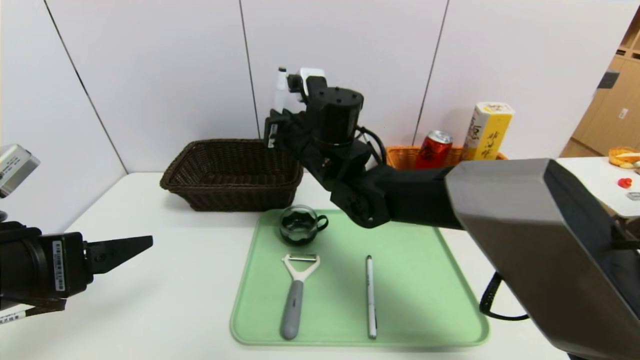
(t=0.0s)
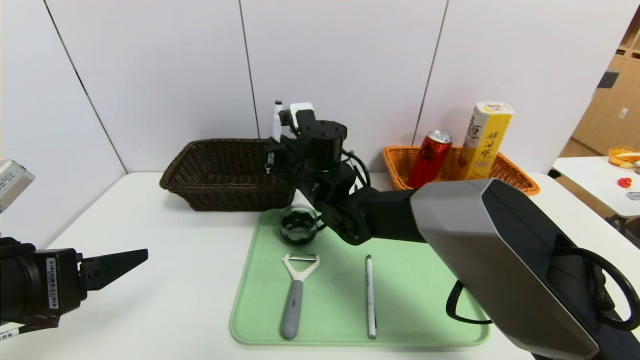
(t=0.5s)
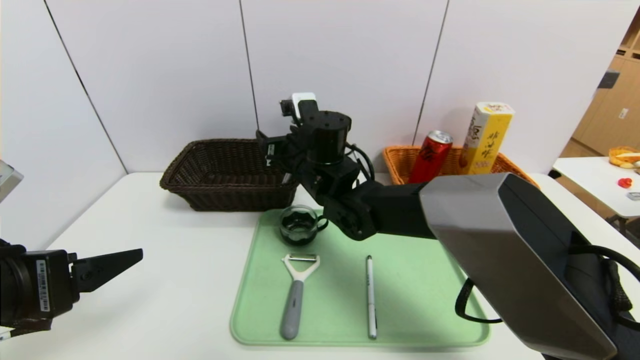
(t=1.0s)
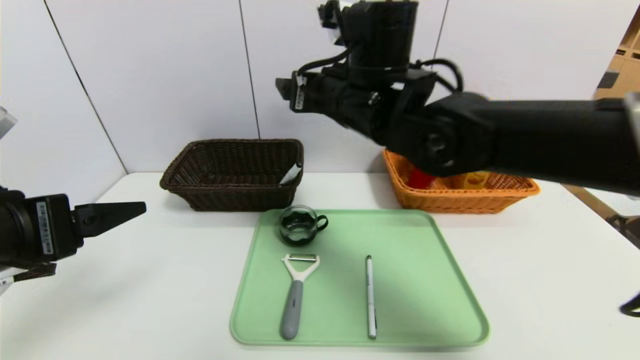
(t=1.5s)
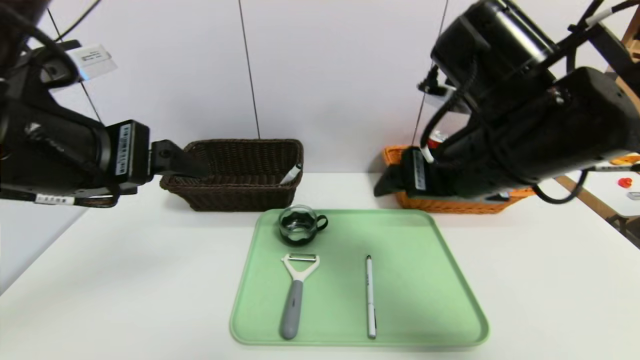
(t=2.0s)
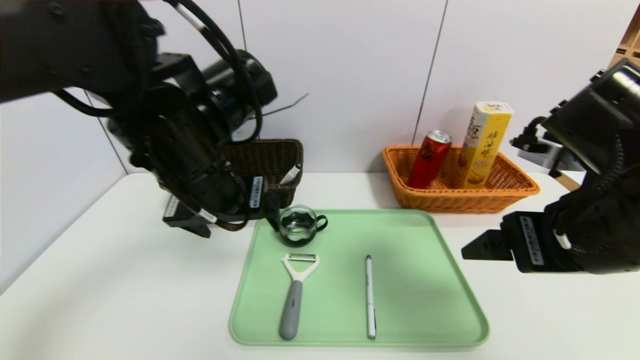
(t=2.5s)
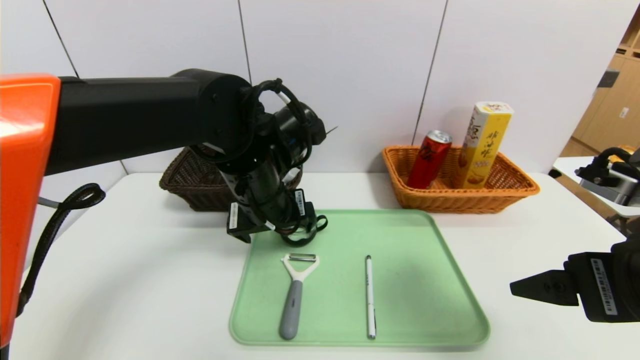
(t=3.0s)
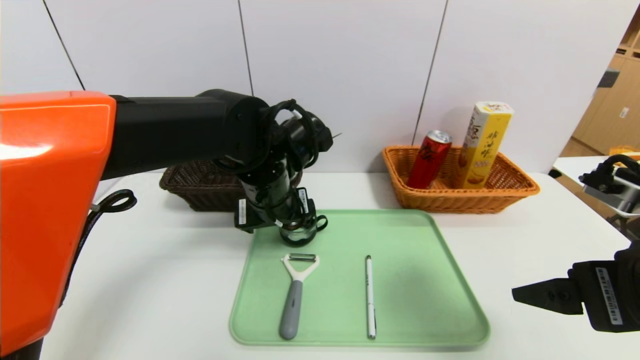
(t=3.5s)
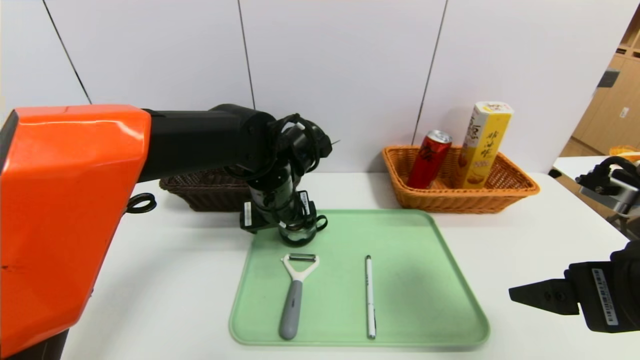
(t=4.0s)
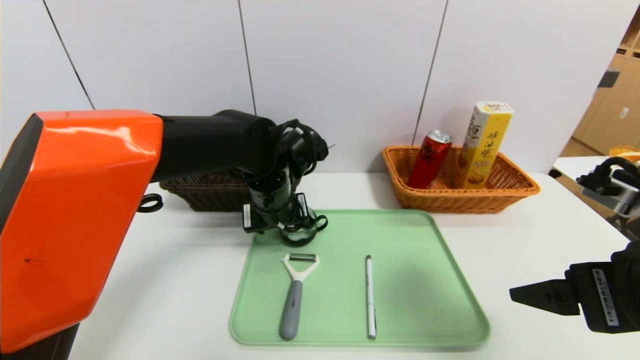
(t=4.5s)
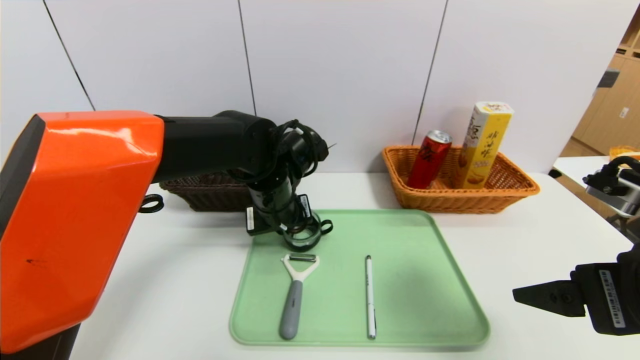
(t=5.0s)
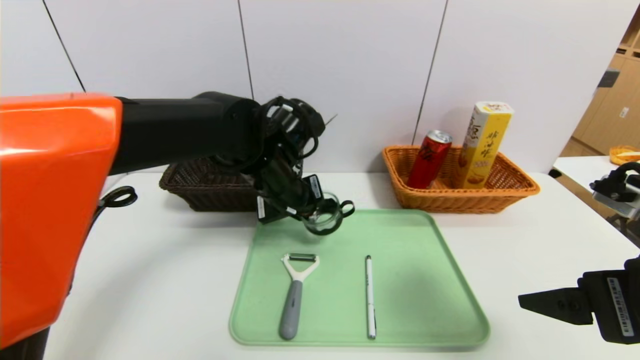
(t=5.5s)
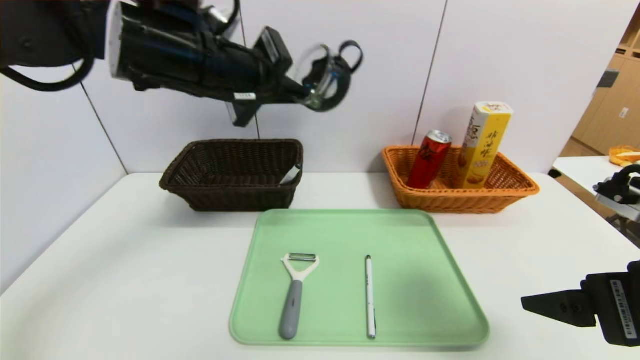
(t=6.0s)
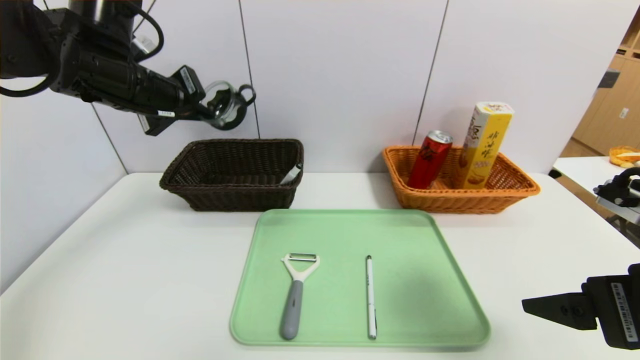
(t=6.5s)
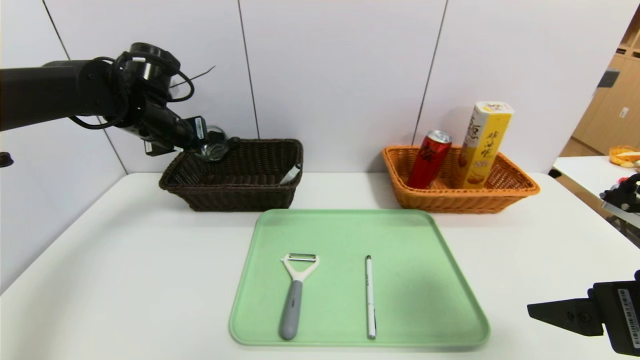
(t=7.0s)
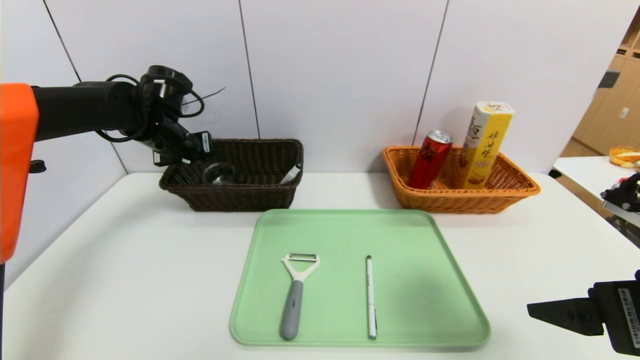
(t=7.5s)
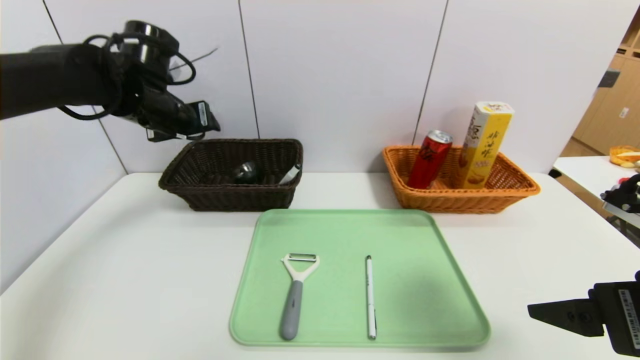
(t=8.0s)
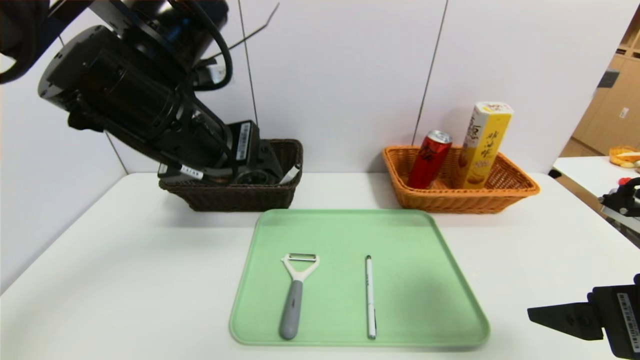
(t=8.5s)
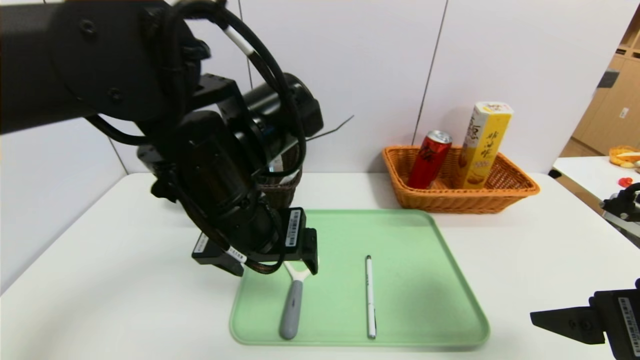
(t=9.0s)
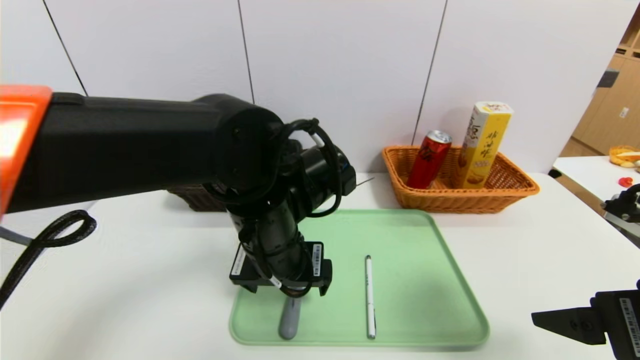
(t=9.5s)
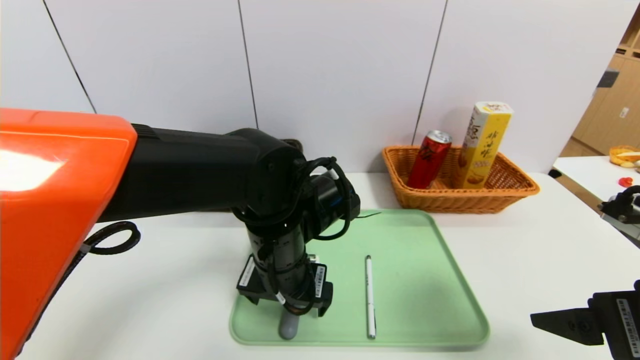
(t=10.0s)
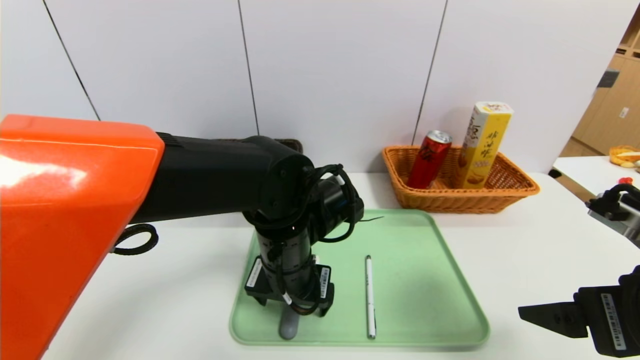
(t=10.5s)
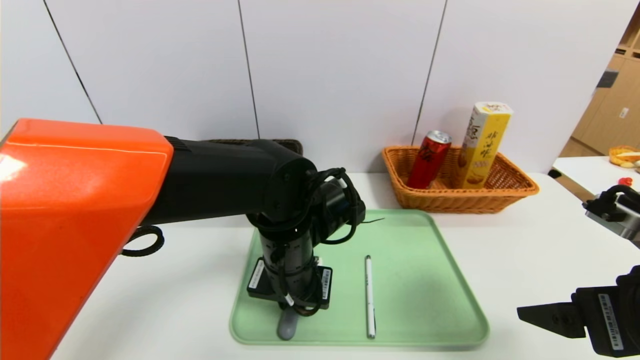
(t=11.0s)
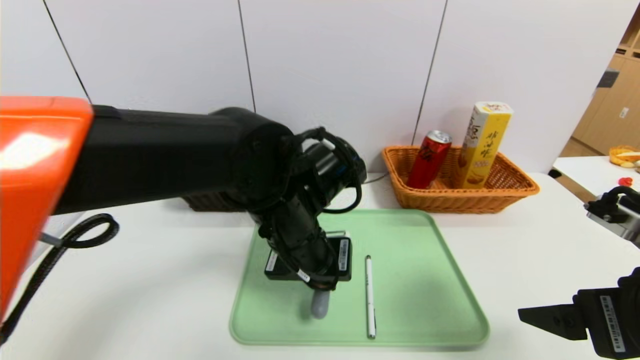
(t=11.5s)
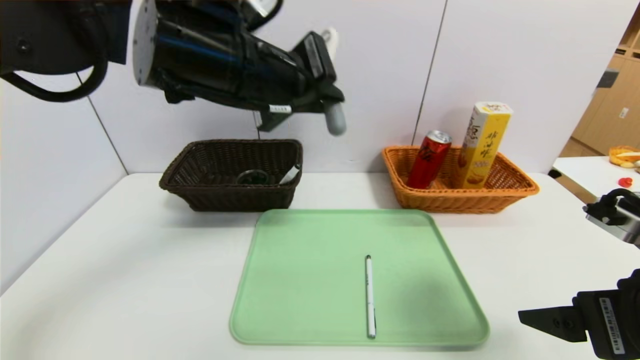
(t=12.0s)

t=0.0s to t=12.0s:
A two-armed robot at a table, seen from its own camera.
Task of the whole recording: place the food in the right basket with the right gripper, and place the non food items in the left basket with the left gripper.
Step, t=1.5s to t=7.5s: Grasp the black glass cup and put it in the left basket.
t=0.0s to t=2.0s: The right gripper goes about 25 cm to the right, backward and upward, and opens its fingers, while the left gripper goes about 10 cm upward, to the right and forward.
t=2.0s to t=4.0s: The right gripper is displaced to the right and backward by approximately 15 cm; the left gripper moves forward, downward and to the right, some 25 cm.
t=4.0s to t=6.0s: The left gripper moves upward, approximately 15 cm, and closes up.
t=6.0s to t=8.0s: The left gripper travels to the left, forward and downward by approximately 15 cm, and opens its fingers.
t=8.0s to t=10.0s: The left gripper travels to the right, backward and downward by approximately 25 cm.
t=10.0s to t=12.0s: The left gripper moves upward, approximately 20 cm, and closes up.

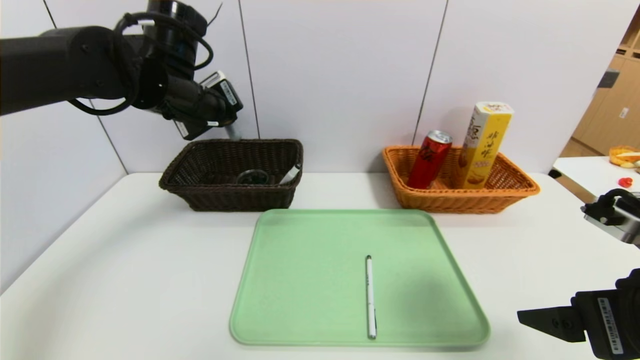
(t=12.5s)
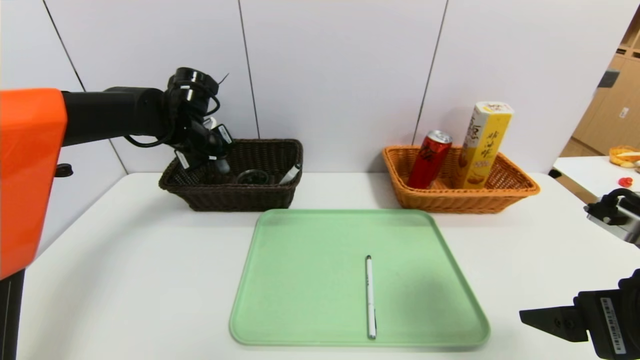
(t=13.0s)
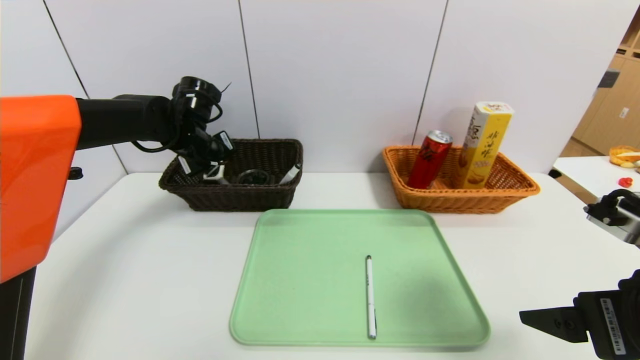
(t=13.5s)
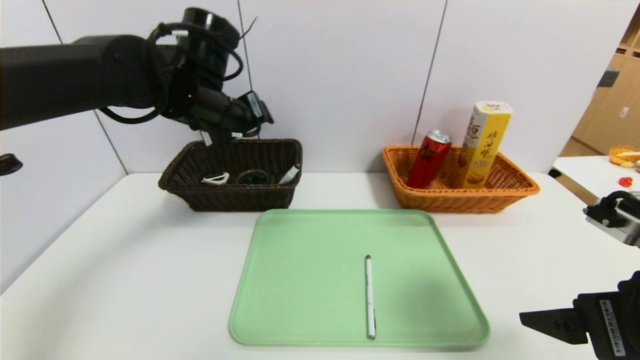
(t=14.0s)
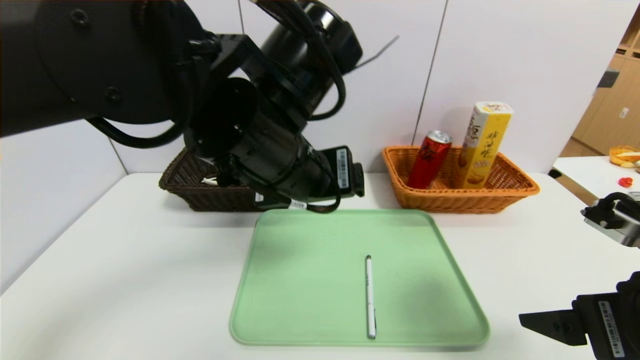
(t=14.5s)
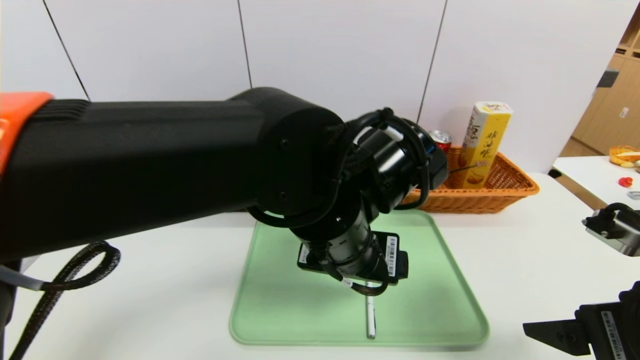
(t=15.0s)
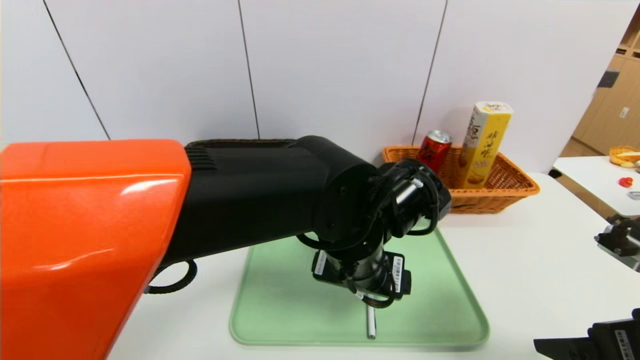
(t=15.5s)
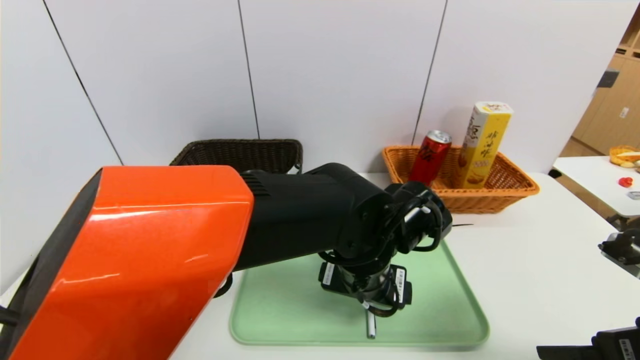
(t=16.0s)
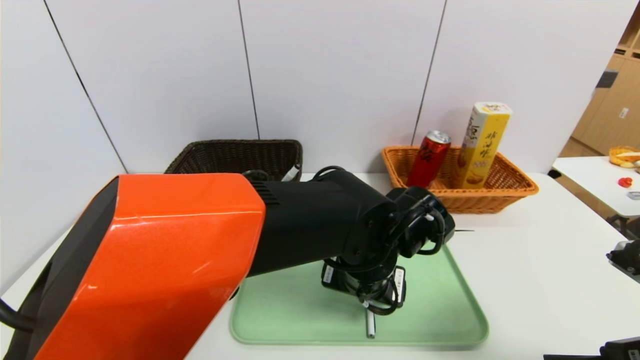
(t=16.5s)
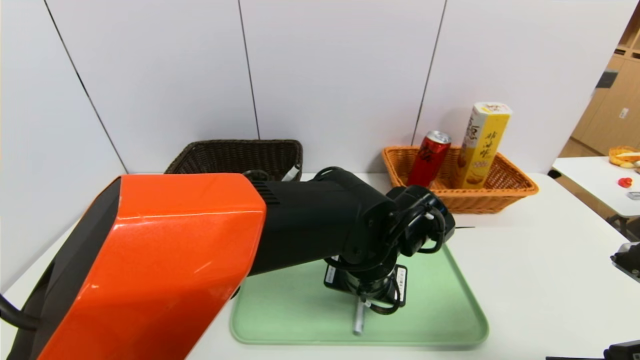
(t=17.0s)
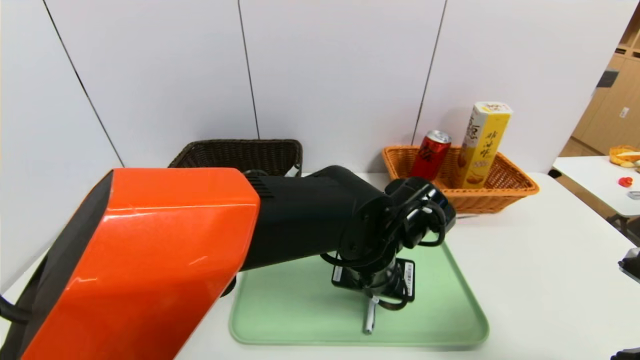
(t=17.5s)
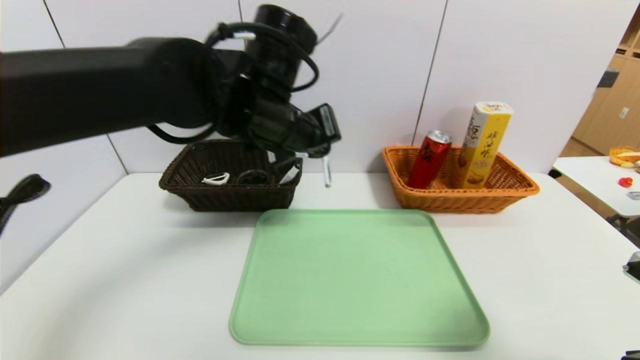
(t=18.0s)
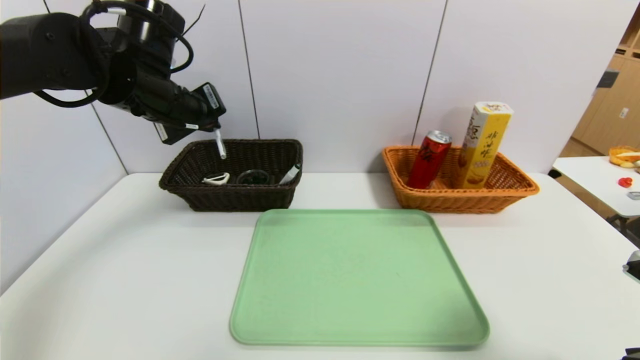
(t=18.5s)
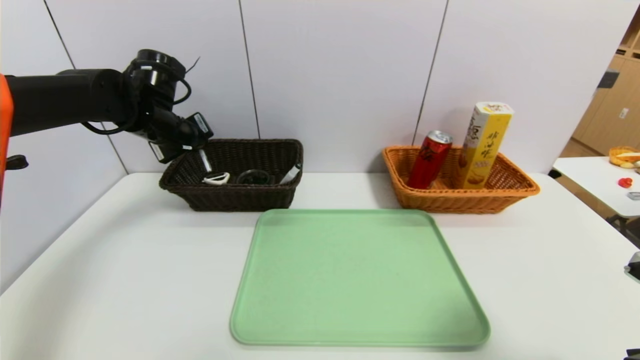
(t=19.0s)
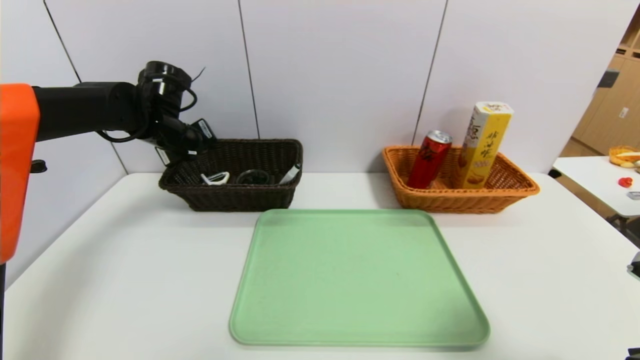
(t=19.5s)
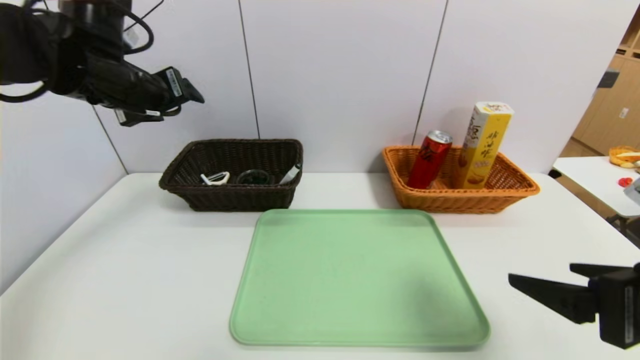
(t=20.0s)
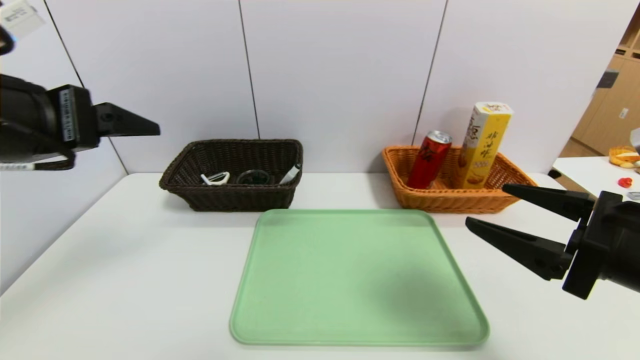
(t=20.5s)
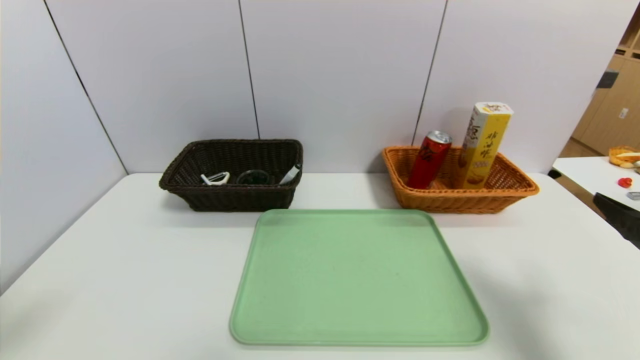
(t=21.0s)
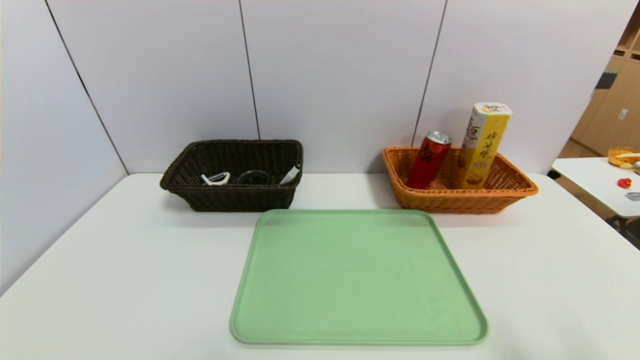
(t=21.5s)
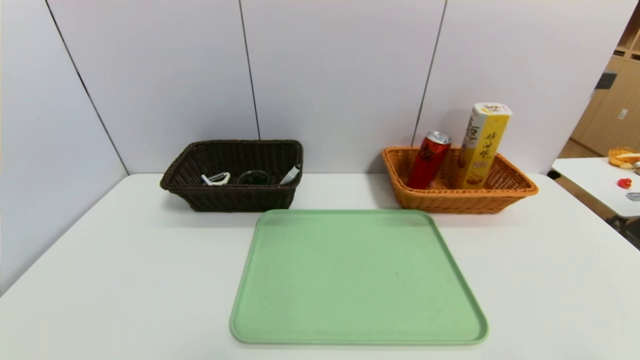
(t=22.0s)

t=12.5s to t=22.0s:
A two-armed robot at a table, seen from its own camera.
Task of the whole recording: place the food in the right basket with the right gripper, and place the non food items in the left basket with the left gripper.
Step, t=14.0s to t=20.5s: Grasp the ballpoint pen and put it in the left basket.
t=12.5s to t=14.5s: The left gripper heads backward and to the right, covering about 20 cm, and opens its fingers.
t=14.5s to t=16.5s: The left gripper moves downward and to the right, about 20 cm.
t=16.5s to t=18.0s: The left gripper moves upward, to the left and forward, about 20 cm, and closes.
t=18.0s to t=20.0s: The left gripper is displaced to the left by about 20 cm, and opens.
t=20.0s to t=22.0s: The right gripper goes about 15 cm backward, downward and to the right; the left gripper shifts approximately 50 cm backward and downward.
